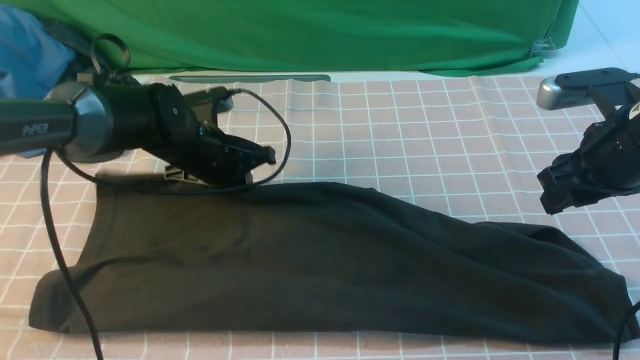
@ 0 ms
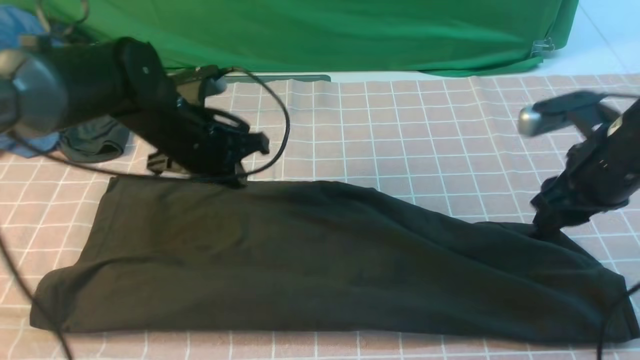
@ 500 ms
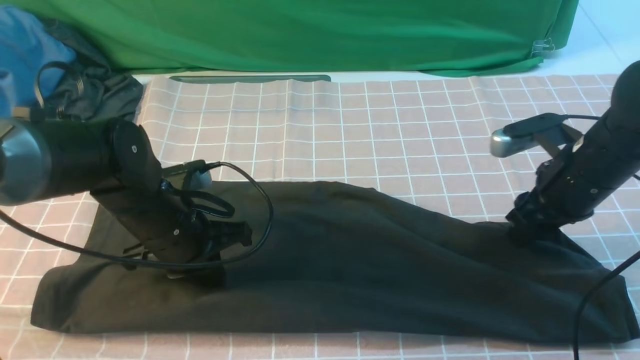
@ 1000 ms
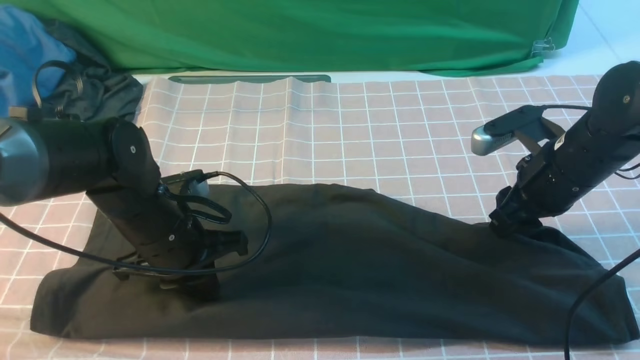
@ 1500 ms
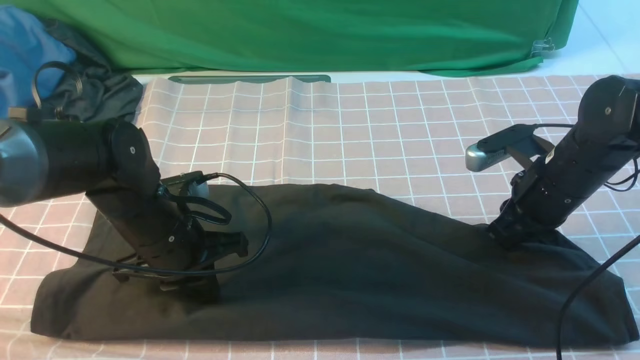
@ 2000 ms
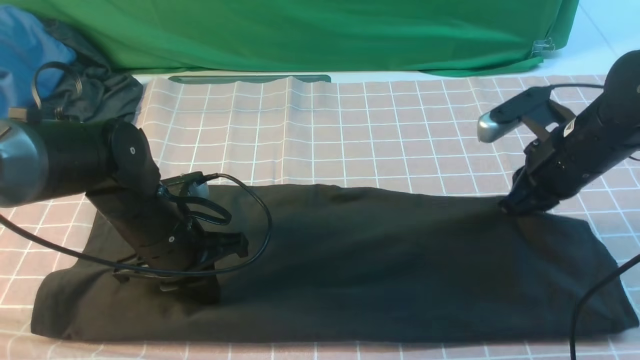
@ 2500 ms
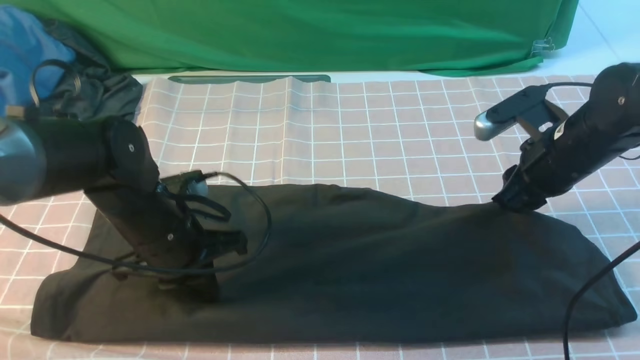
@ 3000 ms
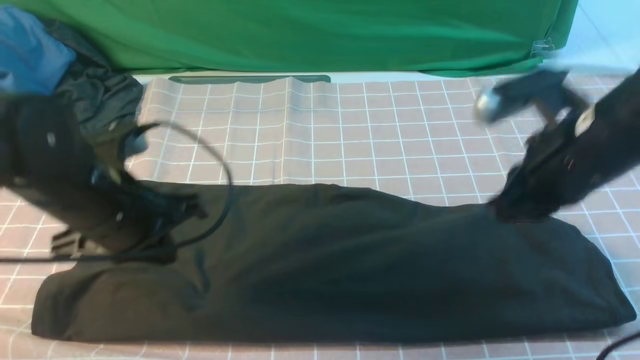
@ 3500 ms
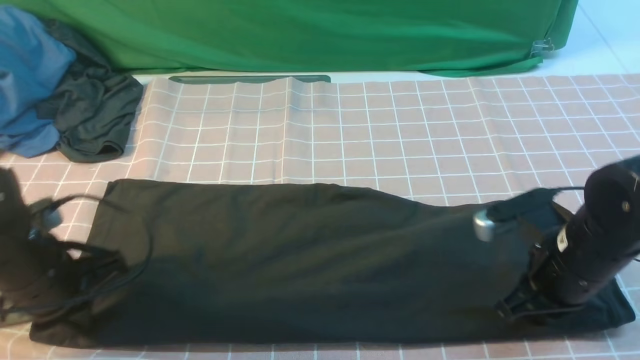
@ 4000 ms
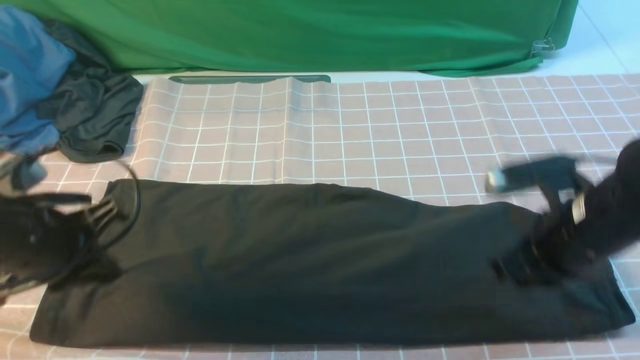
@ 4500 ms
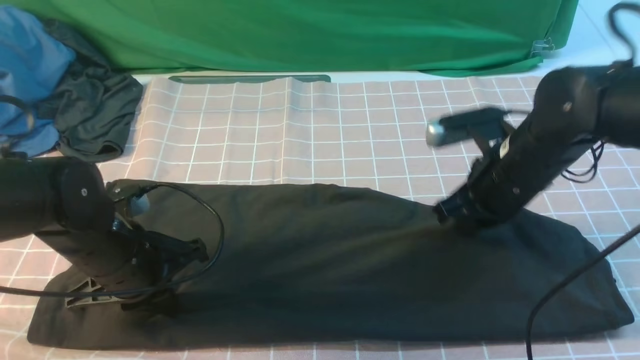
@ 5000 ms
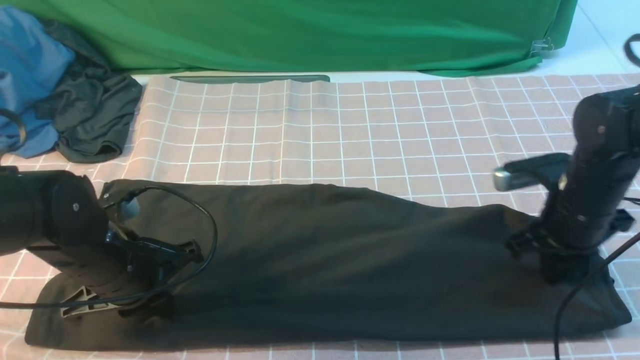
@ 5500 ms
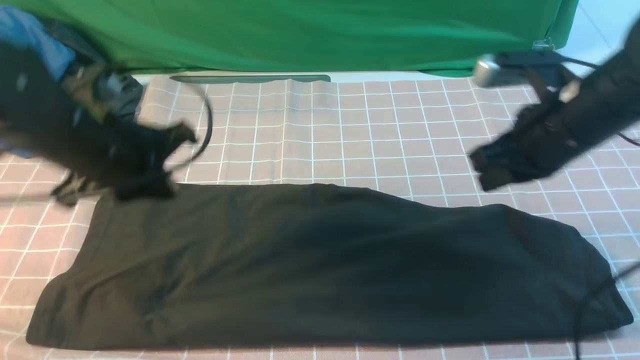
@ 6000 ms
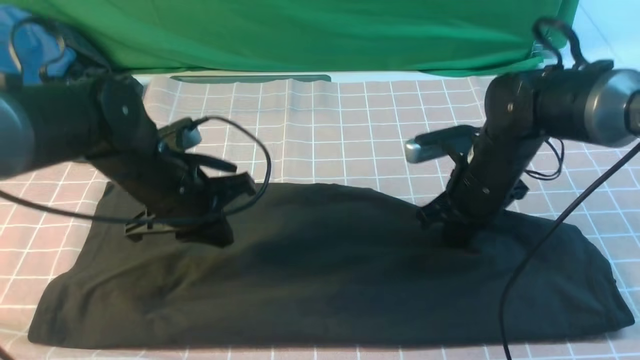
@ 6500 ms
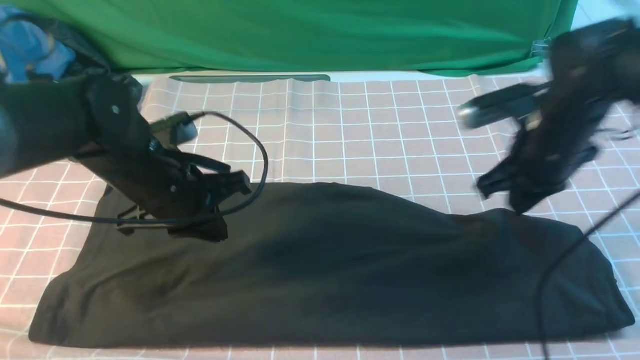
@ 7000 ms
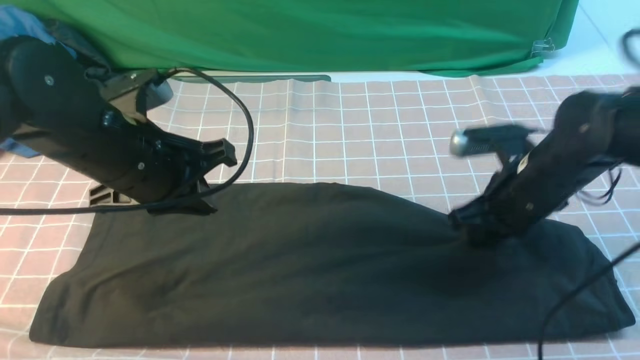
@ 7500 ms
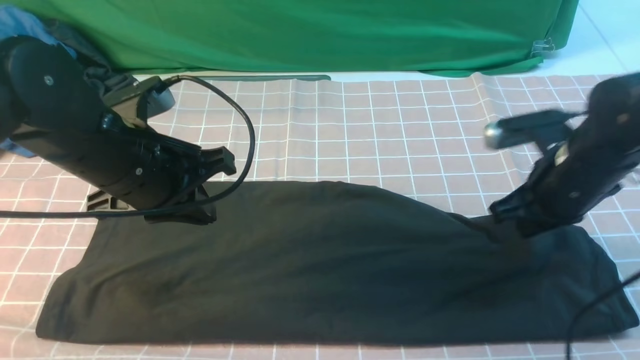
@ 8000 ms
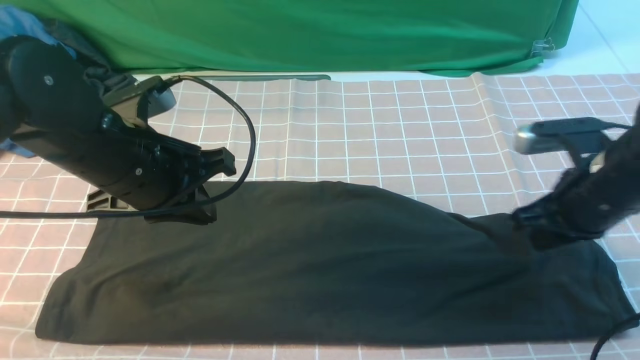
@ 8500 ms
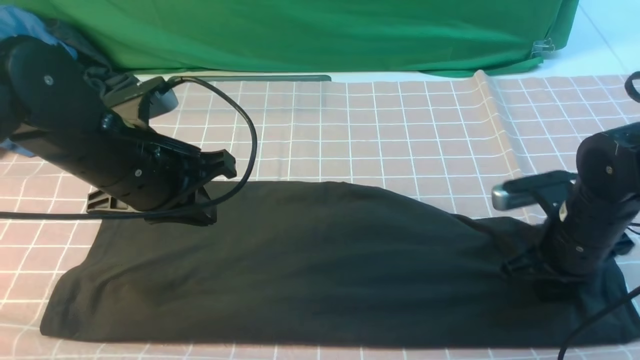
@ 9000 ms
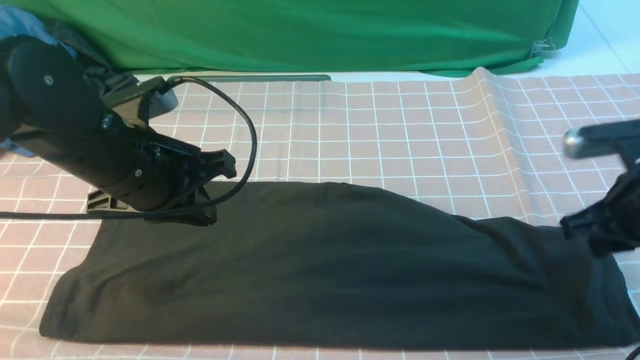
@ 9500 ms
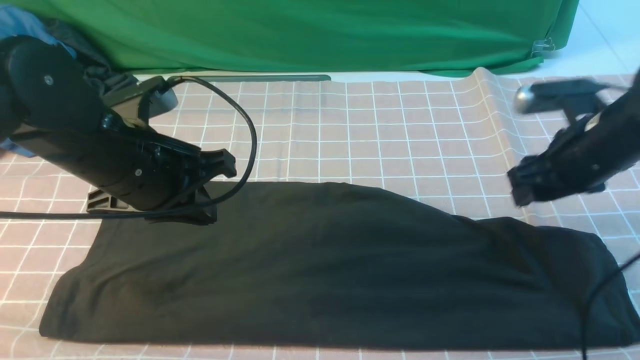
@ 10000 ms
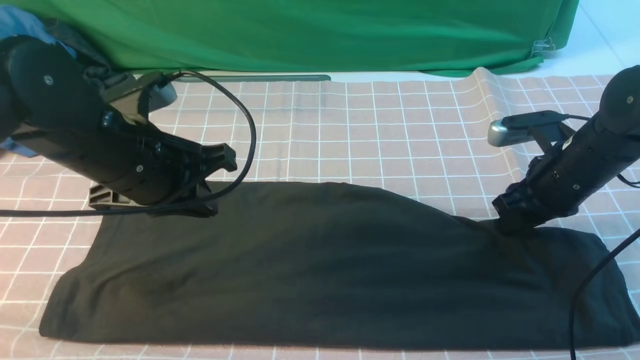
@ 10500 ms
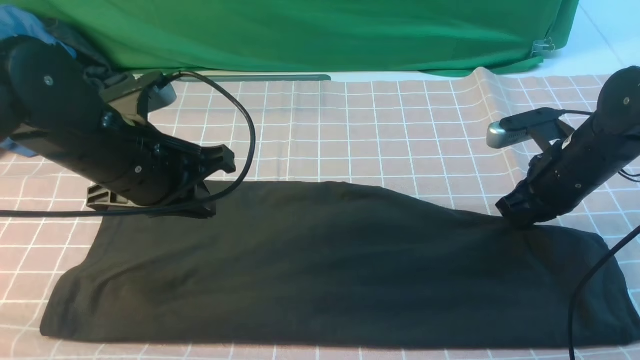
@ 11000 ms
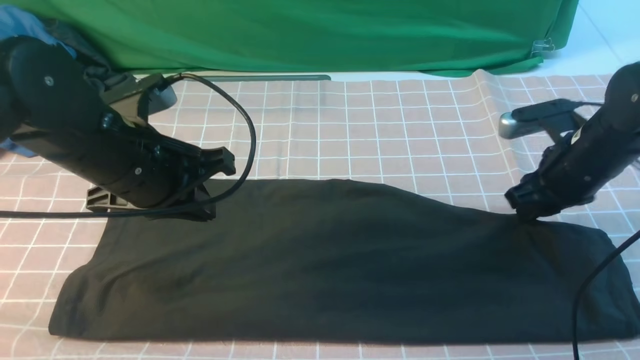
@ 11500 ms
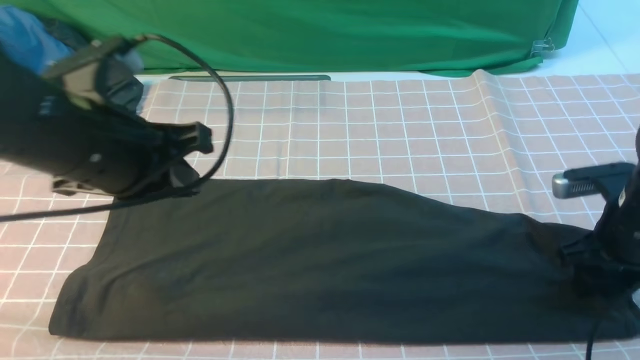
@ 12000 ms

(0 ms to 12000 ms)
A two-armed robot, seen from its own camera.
0 ms - 2000 ms: The left gripper heads backward, covering about 10 cm, while the right gripper goes roughly 5 cm downward, and closes.
2000 ms - 4000 ms: The right gripper heads backward, covering approximately 10 cm. The left gripper shifts approximately 10 cm to the left and backward.
4000 ms - 6000 ms: The left gripper swings up and down, some 10 cm each way, with 2 reversals. Meanwhile the right gripper moves upward and forward, approximately 10 cm.
6000 ms - 8000 ms: The right gripper ends up approximately 5 cm from where it was.
8000 ms - 10000 ms: The right gripper opens up.
10000 ms - 12000 ms: The right gripper moves approximately 5 cm, and closes, then reopens, while the left gripper changes place by some 5 cm.

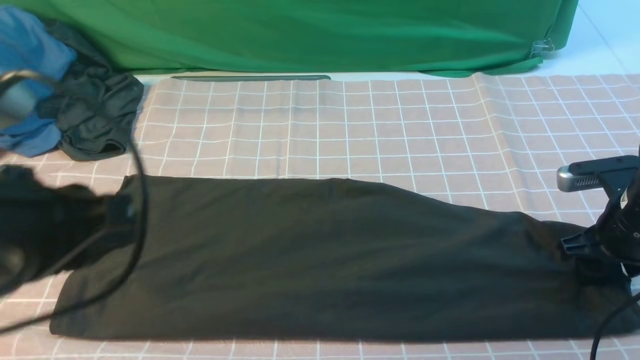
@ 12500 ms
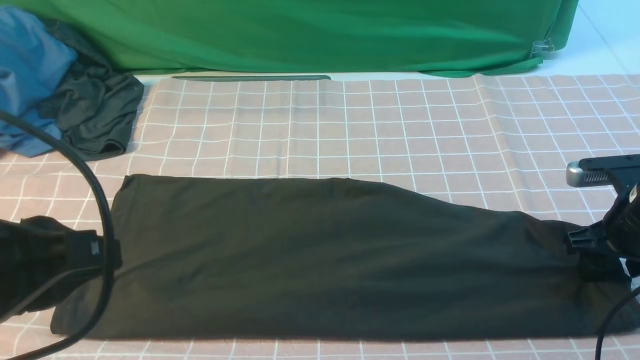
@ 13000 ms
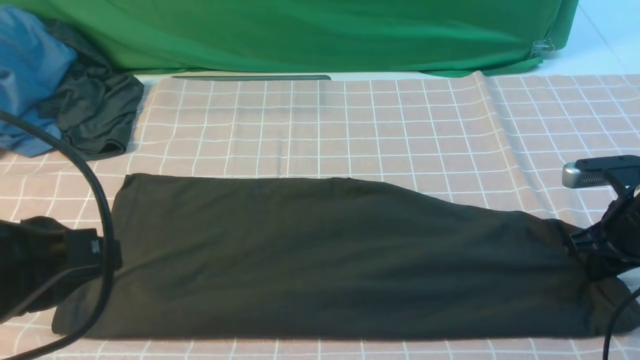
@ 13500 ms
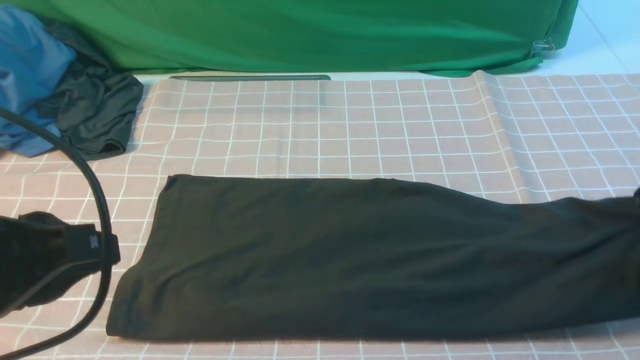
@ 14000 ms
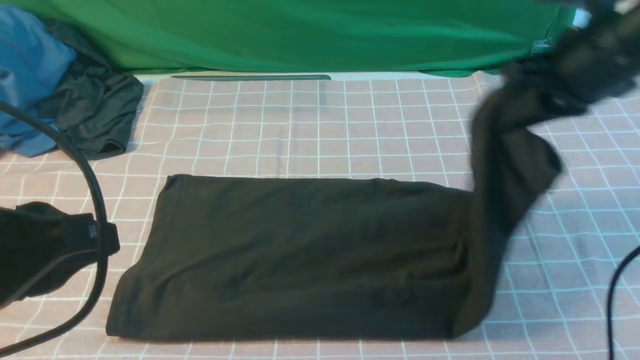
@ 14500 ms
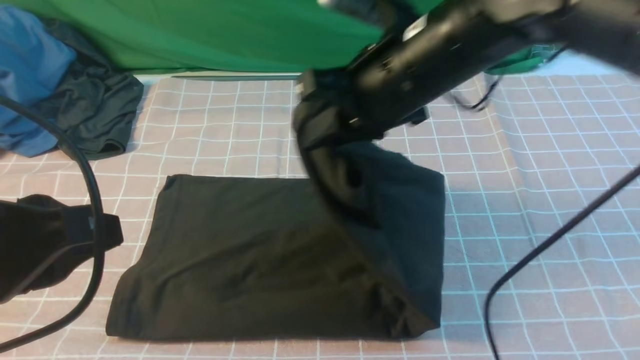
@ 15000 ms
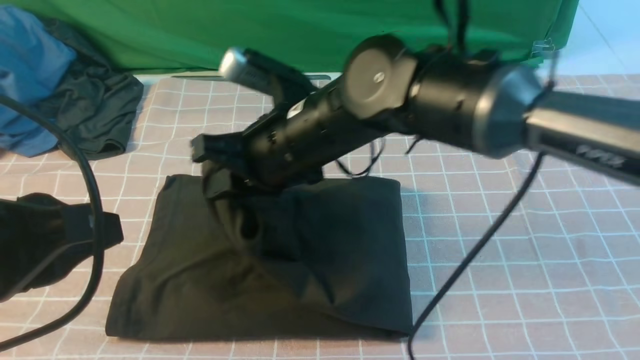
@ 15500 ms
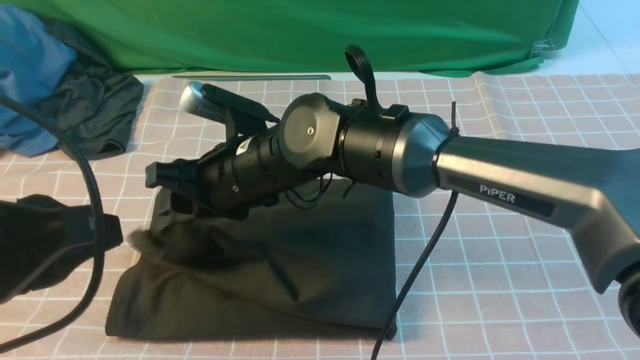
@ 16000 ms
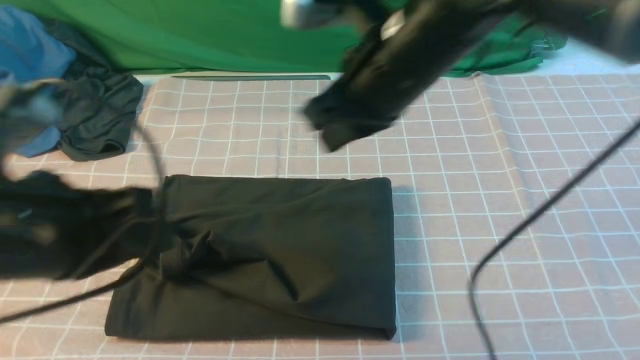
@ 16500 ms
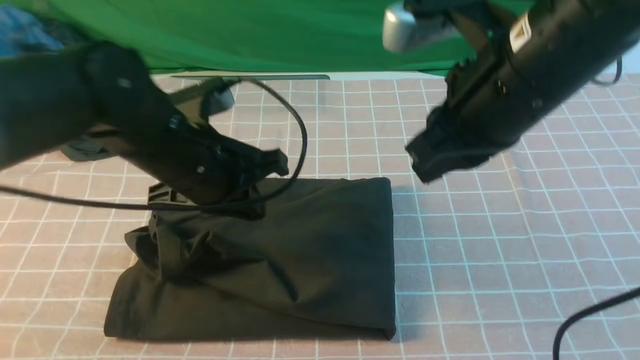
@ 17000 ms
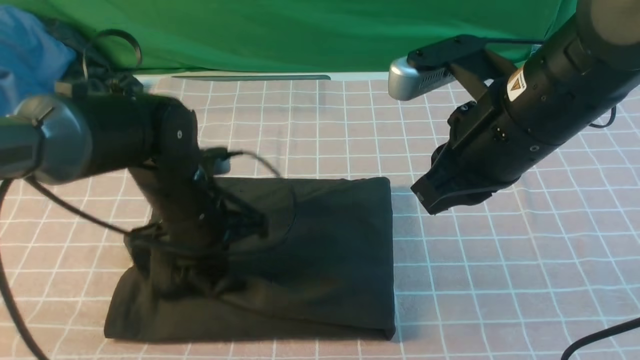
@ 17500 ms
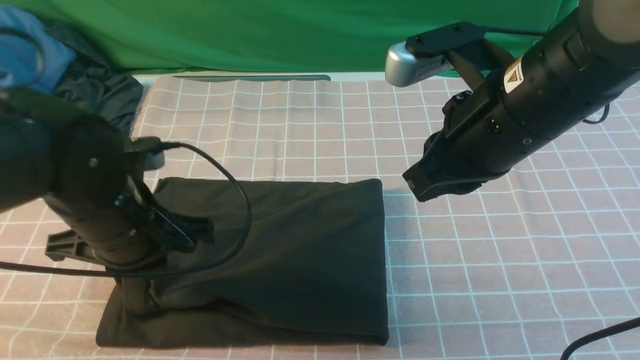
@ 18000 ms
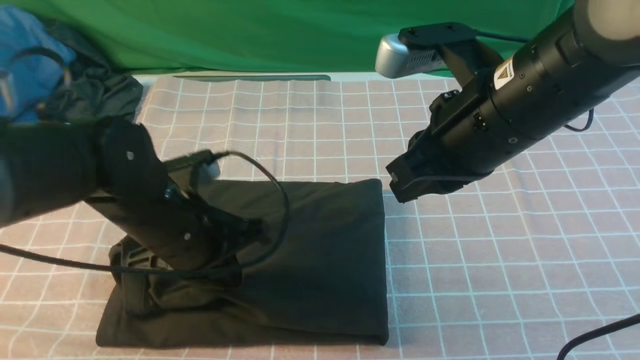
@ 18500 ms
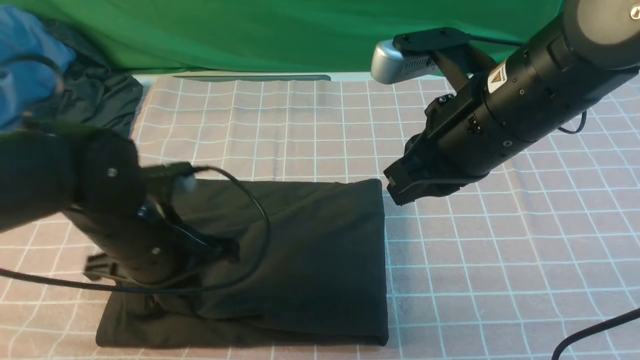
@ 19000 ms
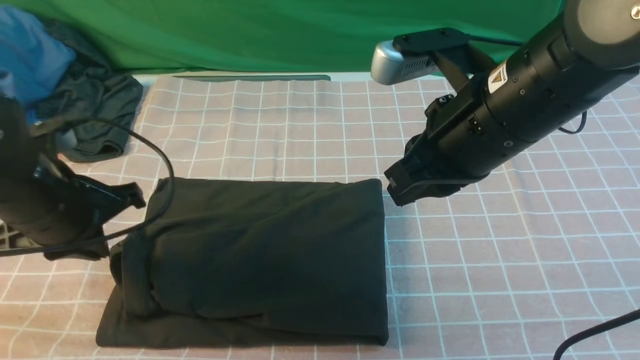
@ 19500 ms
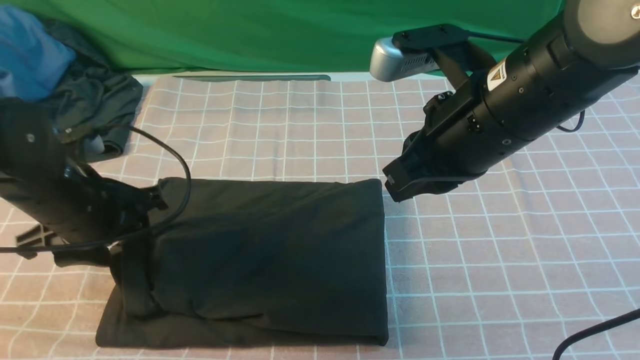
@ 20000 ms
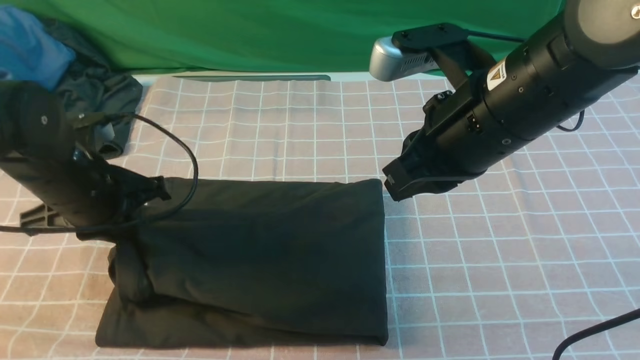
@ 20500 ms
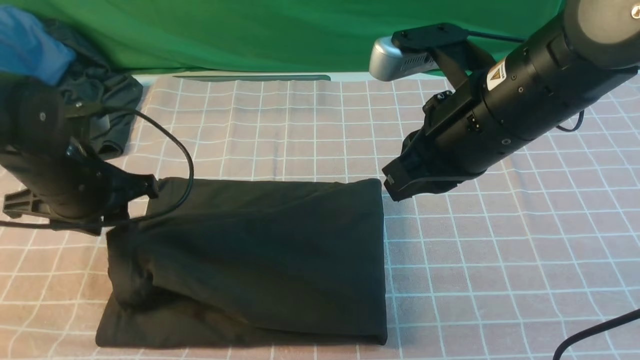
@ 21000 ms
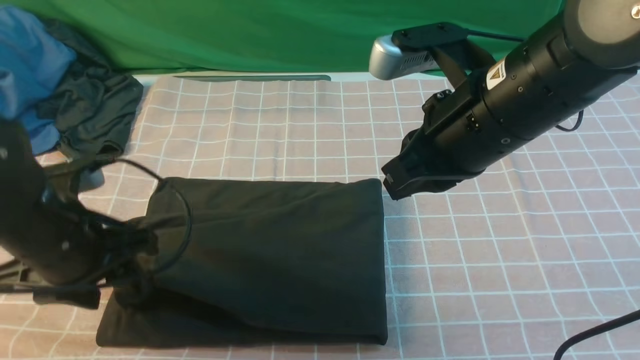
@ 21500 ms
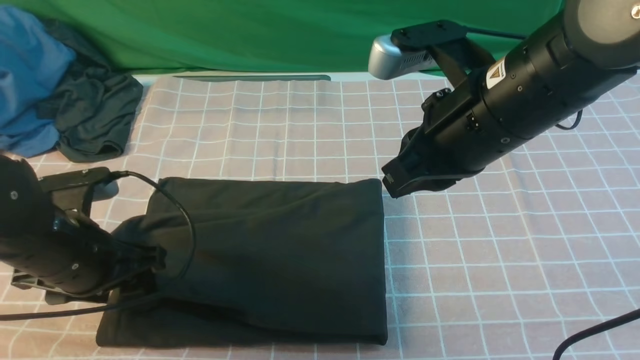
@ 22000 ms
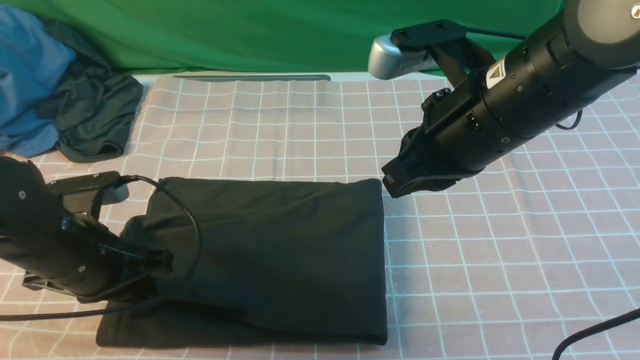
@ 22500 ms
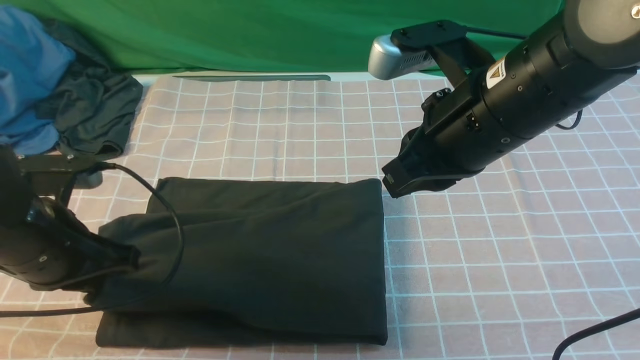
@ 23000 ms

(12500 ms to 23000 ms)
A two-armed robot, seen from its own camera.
12500 ms - 14500 ms: The right gripper travels upward and to the left by about 20 cm, and closes its fingers.
14500 ms - 16500 ms: The left gripper is displaced forward by roughly 5 cm; the right gripper goes approximately 15 cm to the left, and opens and closes again.
16500 ms - 19000 ms: The right gripper travels to the right by some 5 cm. Meanwhile the left gripper is displaced downward and forward by some 15 cm.
19000 ms - 21000 ms: The left gripper travels to the left by some 10 cm, and opens.
21000 ms - 23000 ms: The left gripper is displaced backward by approximately 5 cm, and closes its fingers.
